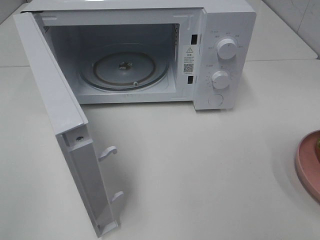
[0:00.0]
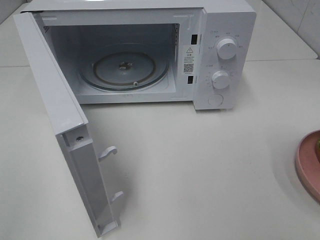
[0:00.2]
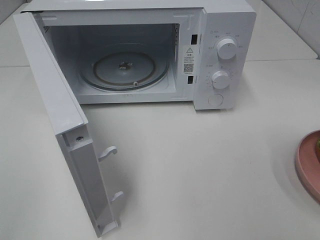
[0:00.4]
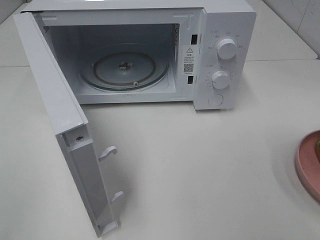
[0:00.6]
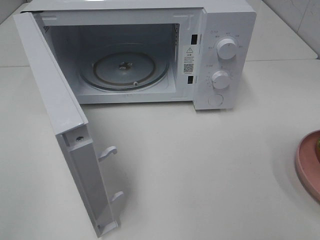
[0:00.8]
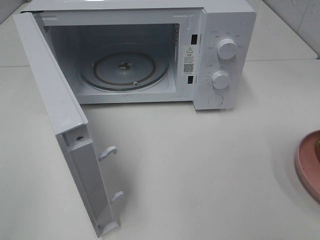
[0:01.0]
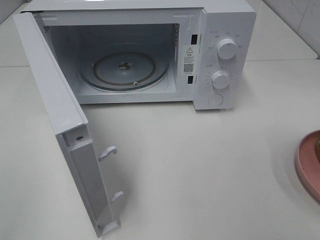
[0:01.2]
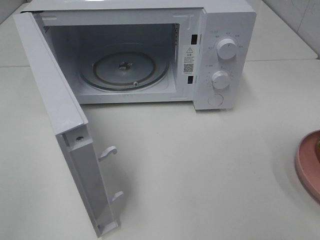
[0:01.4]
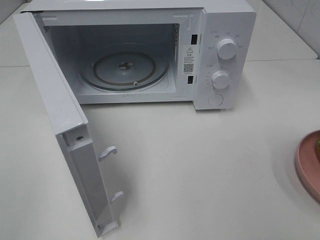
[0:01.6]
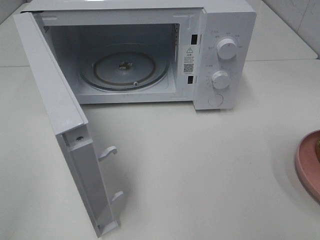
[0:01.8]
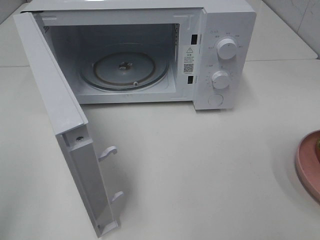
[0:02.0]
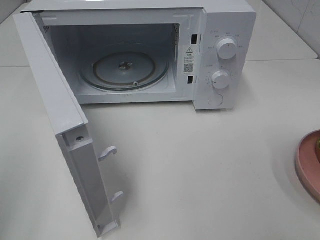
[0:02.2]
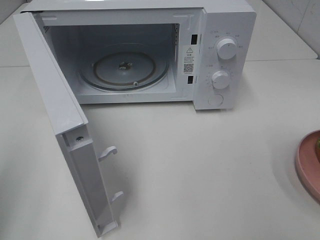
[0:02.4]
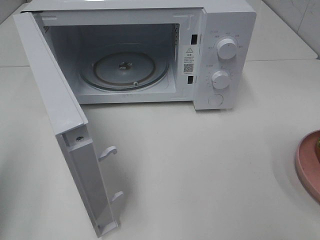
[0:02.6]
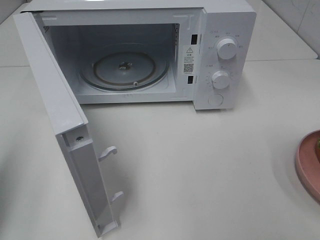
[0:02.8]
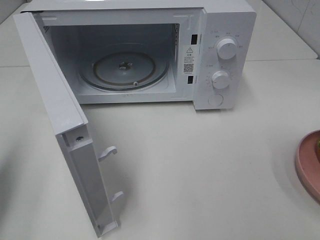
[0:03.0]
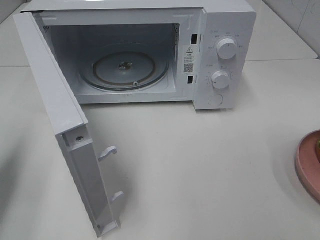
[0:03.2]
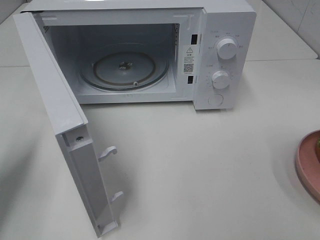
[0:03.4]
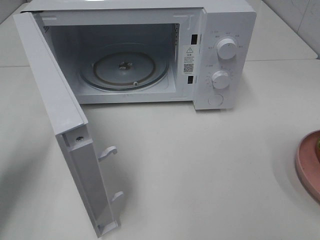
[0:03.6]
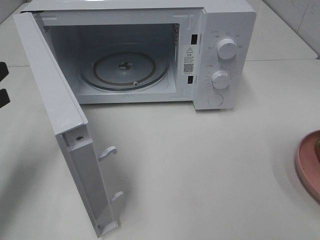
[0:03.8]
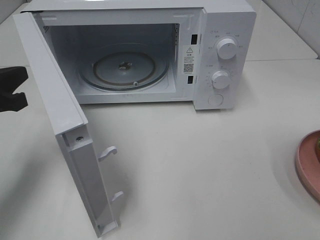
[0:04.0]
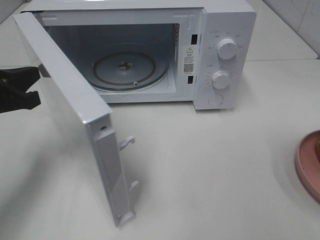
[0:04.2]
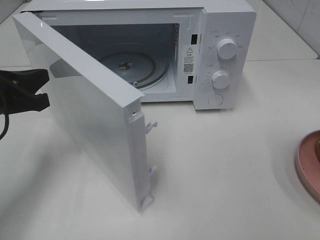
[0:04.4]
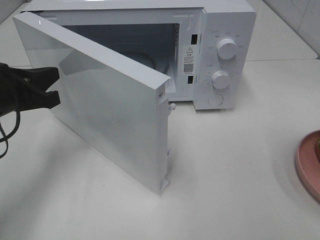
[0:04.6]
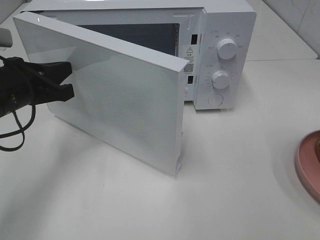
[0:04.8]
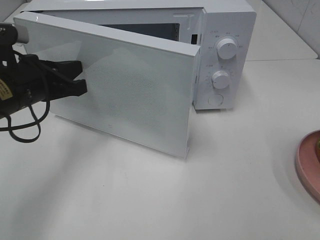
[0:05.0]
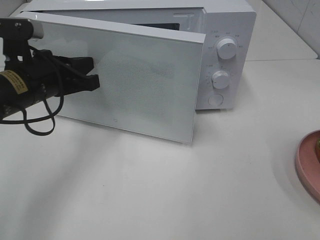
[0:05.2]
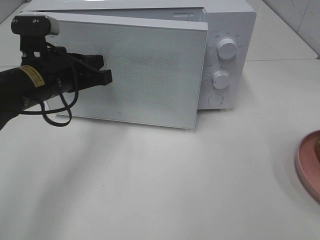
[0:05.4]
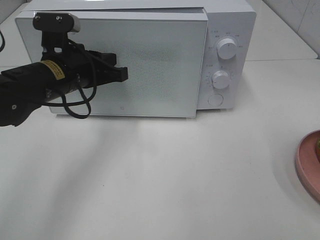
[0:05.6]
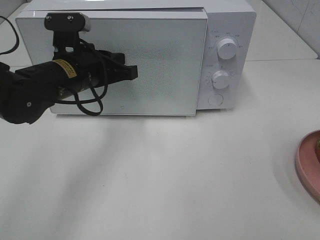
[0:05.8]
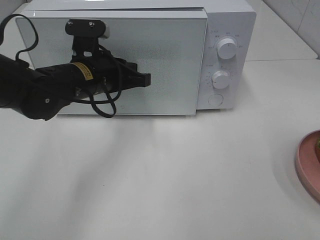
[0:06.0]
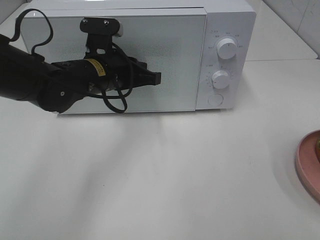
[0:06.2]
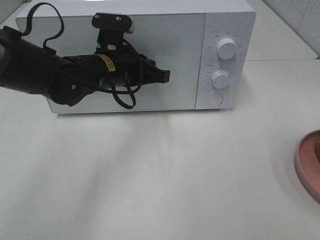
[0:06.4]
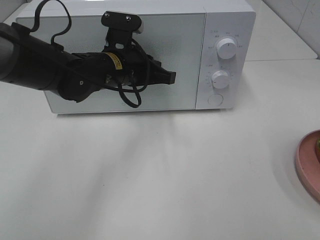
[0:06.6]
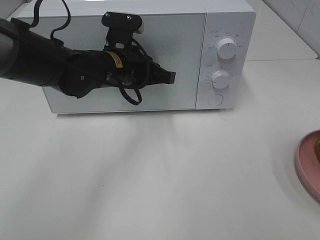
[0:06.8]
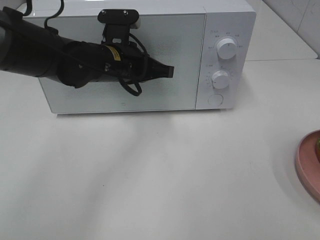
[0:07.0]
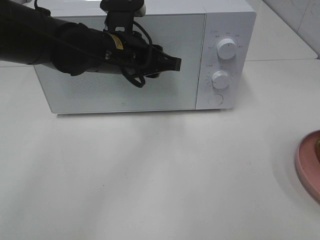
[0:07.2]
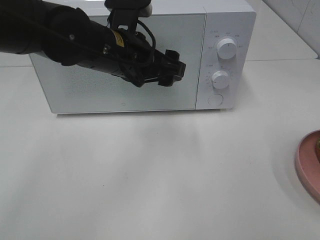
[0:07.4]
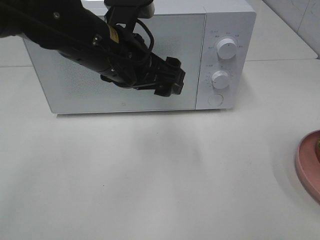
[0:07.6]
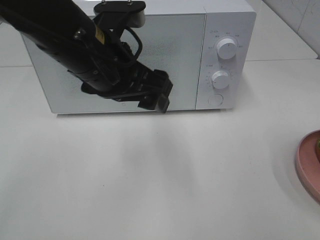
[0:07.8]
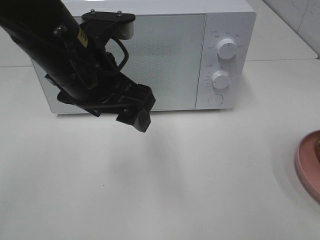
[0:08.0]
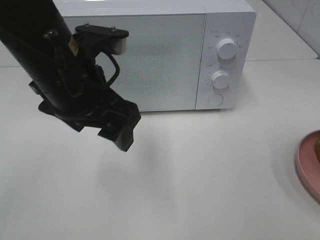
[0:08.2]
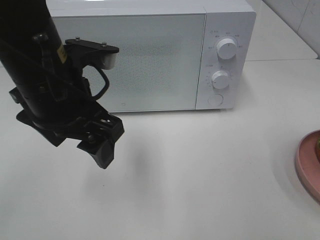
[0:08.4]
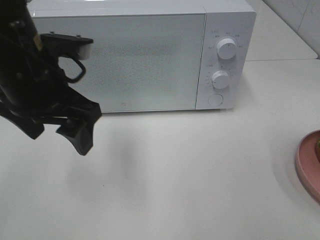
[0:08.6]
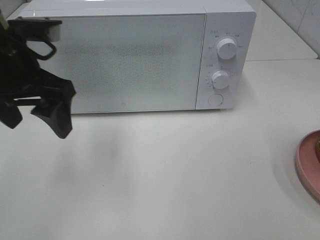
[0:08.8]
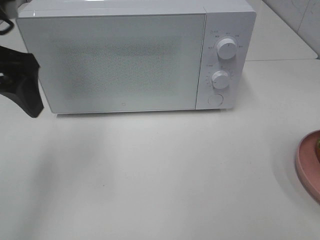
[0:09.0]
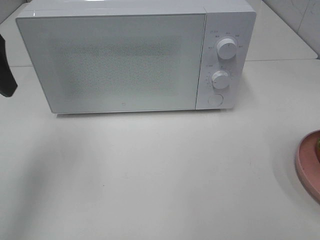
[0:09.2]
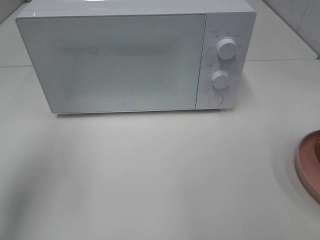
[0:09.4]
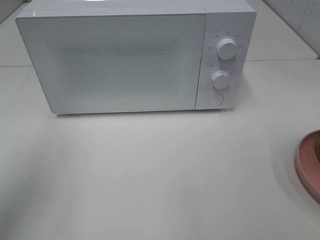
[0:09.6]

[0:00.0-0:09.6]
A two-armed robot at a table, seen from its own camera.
Task of the whole recording: Heat the burger.
Step, 0.0 to 7.0 s: Left hand: close the microwave door.
0.0 to 1.6 s: Both grippers stay put.
1.6 to 3.2 s: The left gripper is displaced forward and downward by some 20 cm, and closes its fingers.
3.2 to 4.8 s: The left gripper heads to the right and forward, covering roughly 15 cm.
4.8 to 6.4 s: The left gripper travels to the right and forward by approximately 15 cm.
6.4 to 8.0 s: The left gripper heads backward and upward, covering roughly 15 cm, and opens its fingers.
8.0 to 9.6 s: The left gripper travels to the left by approximately 20 cm.

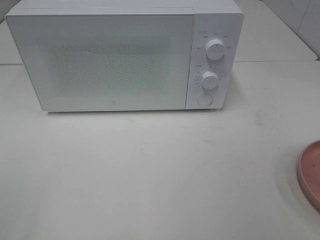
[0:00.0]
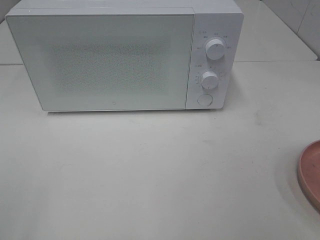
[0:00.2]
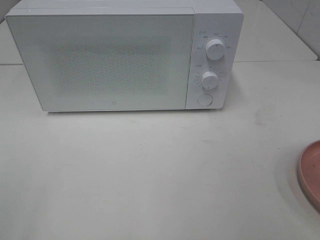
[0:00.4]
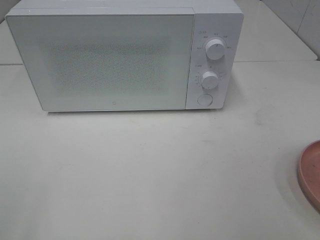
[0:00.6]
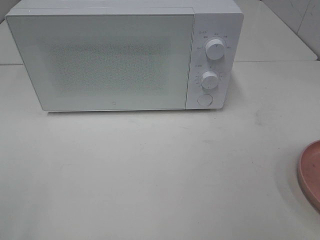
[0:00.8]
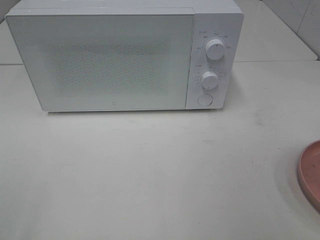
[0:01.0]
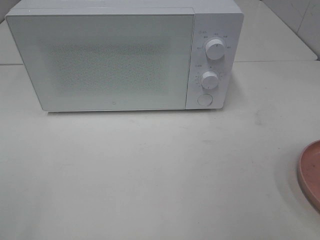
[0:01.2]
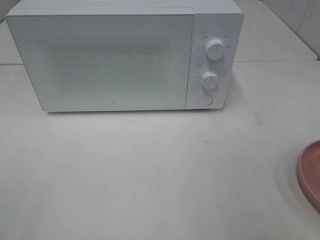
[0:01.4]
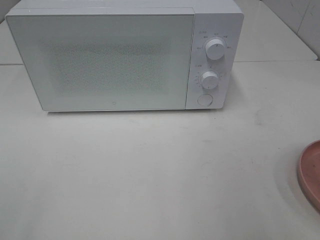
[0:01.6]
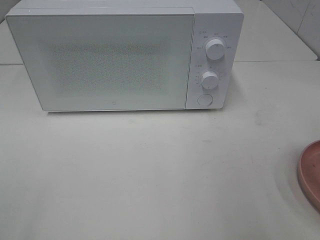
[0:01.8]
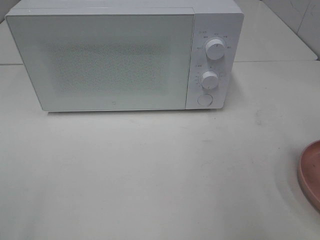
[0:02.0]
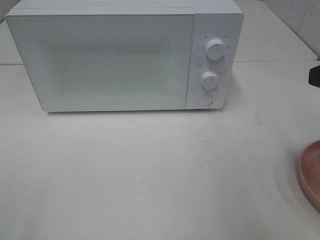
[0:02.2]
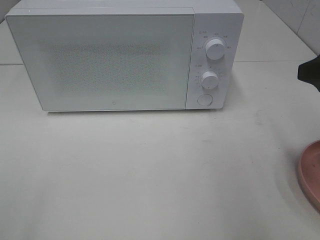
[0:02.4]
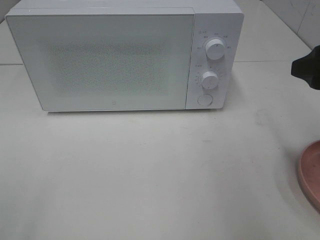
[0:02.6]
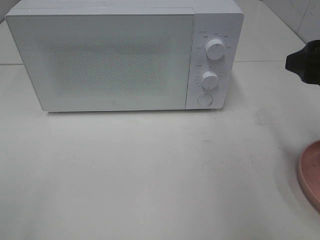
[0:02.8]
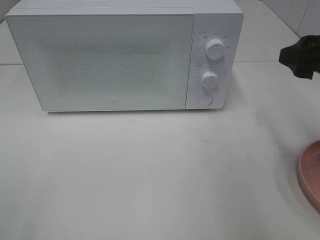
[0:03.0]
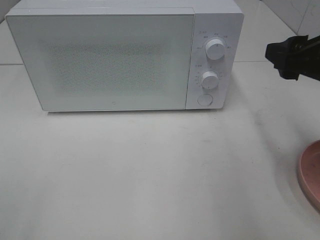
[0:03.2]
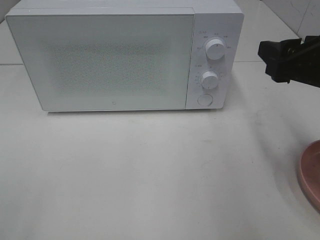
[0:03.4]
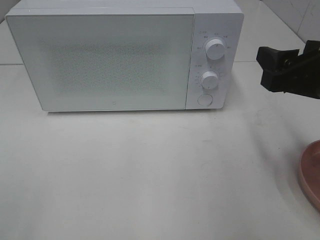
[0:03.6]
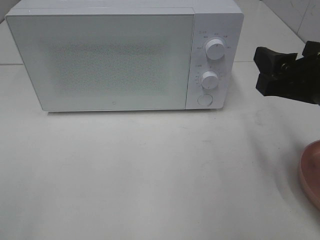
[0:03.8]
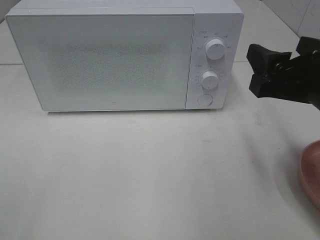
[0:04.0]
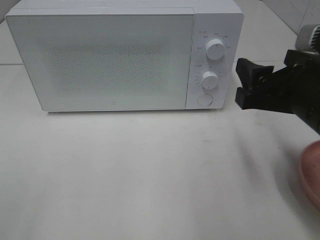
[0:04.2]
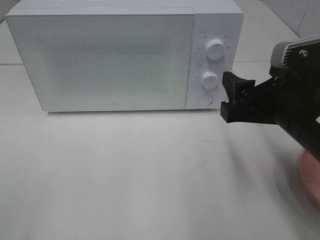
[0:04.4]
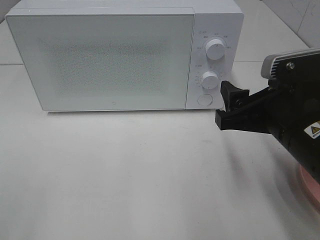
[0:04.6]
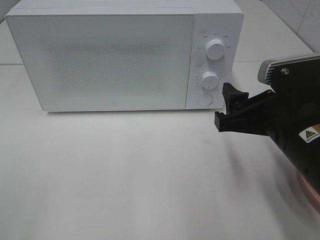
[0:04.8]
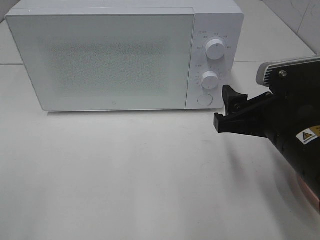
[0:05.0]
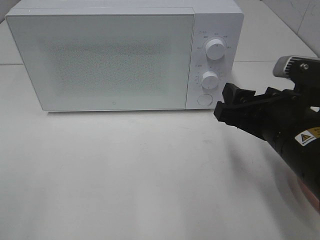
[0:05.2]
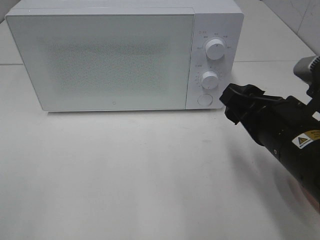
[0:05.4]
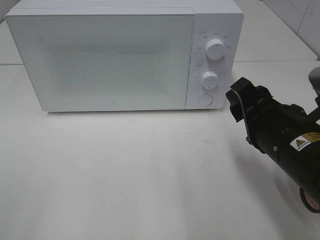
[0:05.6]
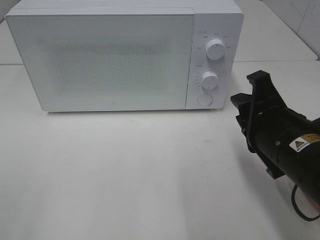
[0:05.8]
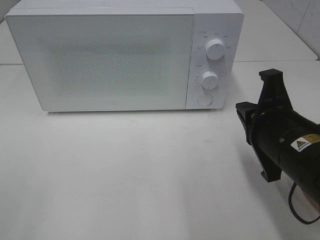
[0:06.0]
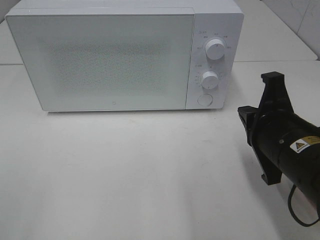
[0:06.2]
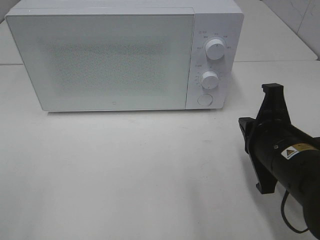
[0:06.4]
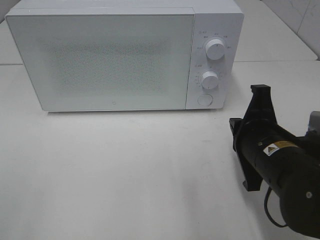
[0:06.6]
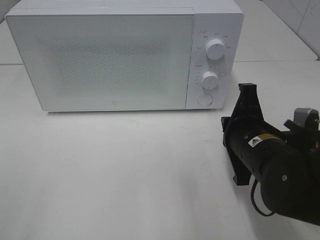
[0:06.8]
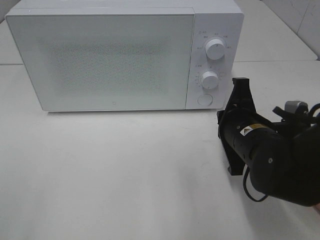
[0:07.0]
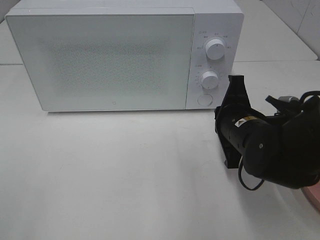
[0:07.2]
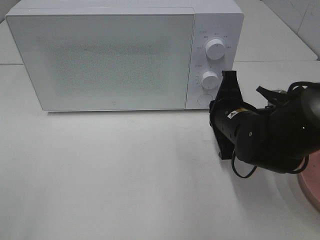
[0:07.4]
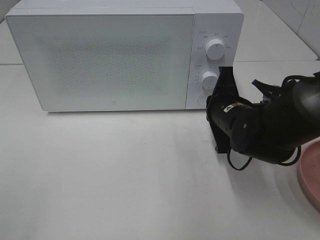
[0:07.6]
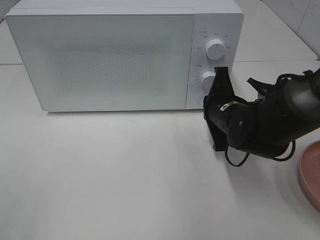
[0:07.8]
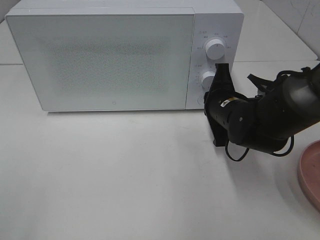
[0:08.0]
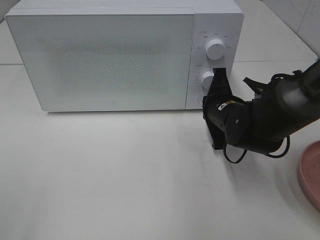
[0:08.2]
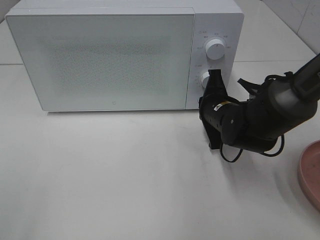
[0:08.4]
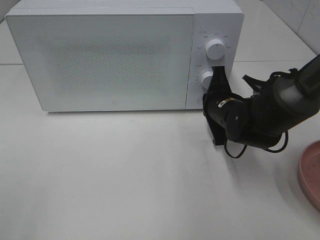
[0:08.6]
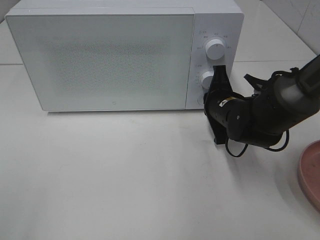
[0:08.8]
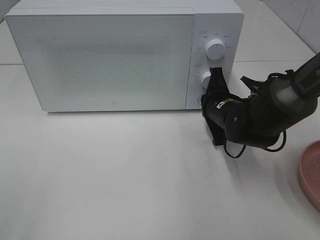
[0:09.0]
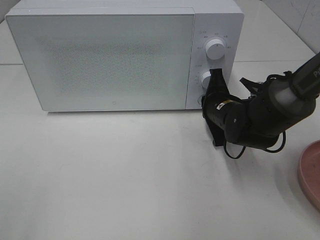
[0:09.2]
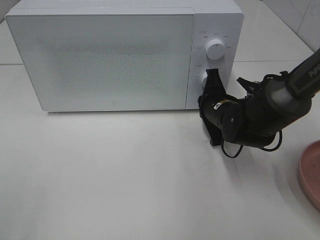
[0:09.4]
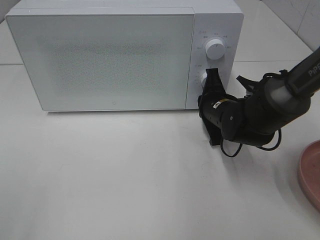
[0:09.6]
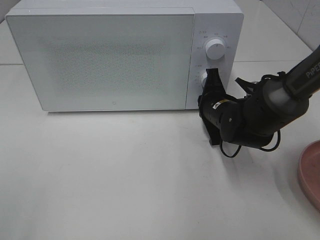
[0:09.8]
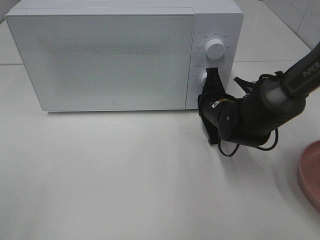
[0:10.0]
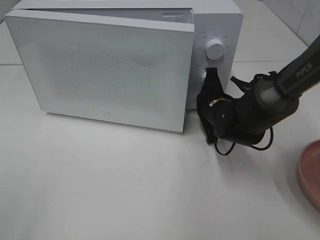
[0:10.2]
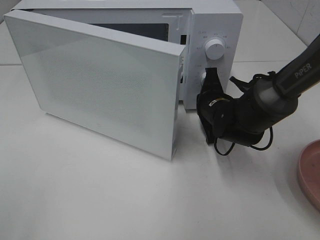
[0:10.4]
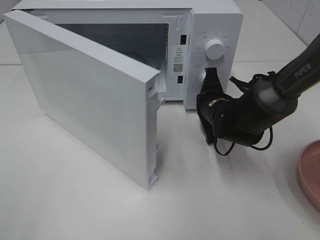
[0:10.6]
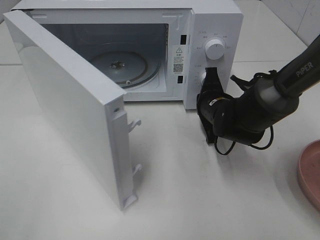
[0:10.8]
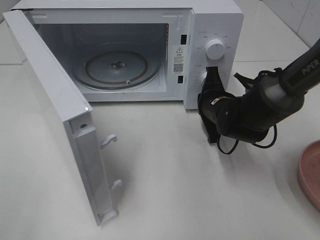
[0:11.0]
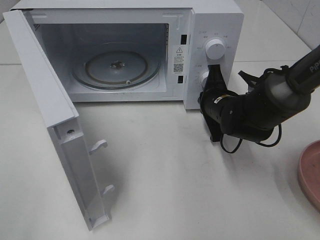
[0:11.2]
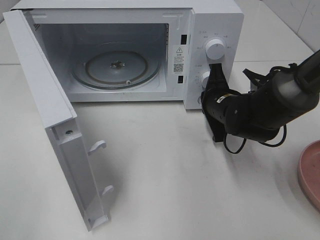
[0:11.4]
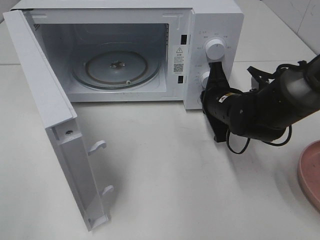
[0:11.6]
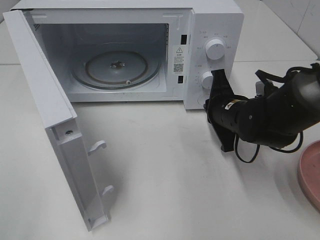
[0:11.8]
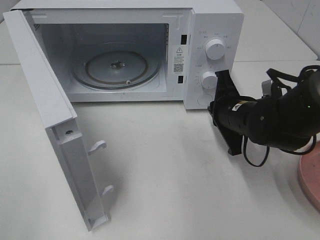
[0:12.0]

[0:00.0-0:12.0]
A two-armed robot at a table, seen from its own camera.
Task of the whole recording: Heat the burger.
Step, 0.0 to 11.8 s: Right hand: press the switch.
1.6 to 3.0 s: The right gripper heads forward, covering about 15 cm.
3.0 to 4.4 s: The right gripper shifts some 10 cm to the left and downward.
4.4 to 6.0 s: The right gripper closes up.
6.0 to 7.6 s: The right gripper travels forward and downward by approximately 15 cm.
7.6 to 9.0 s: The right gripper moves roughly 5 cm.
9.0 to 10.4 s: The grippers stay close to where they were, moving slightly.
10.4 to 12.0 s: The right gripper heads backward, covering roughly 5 cm.

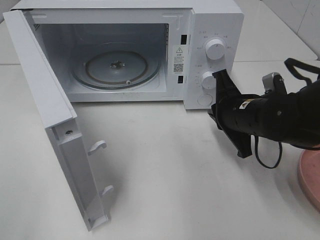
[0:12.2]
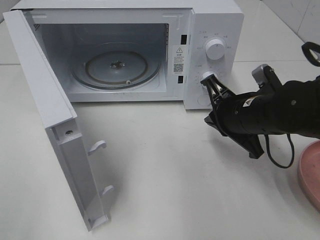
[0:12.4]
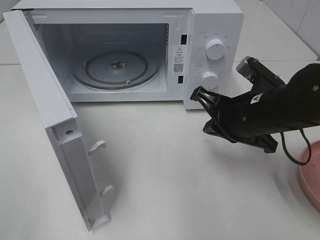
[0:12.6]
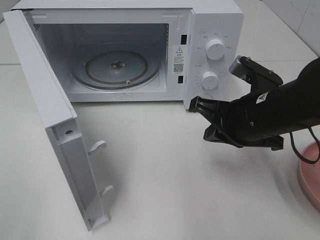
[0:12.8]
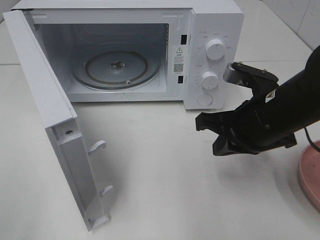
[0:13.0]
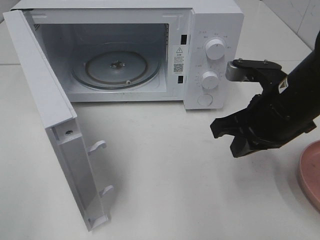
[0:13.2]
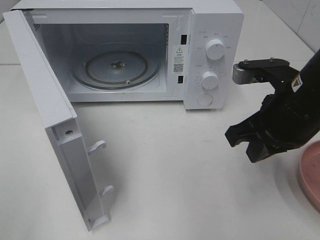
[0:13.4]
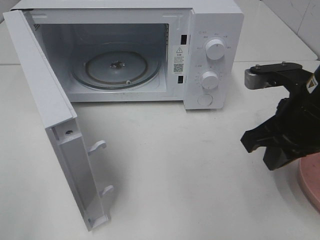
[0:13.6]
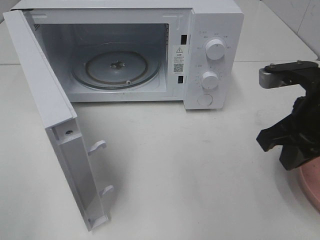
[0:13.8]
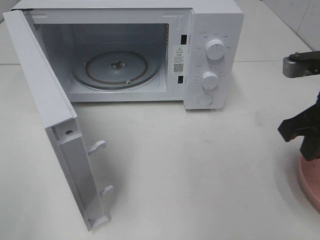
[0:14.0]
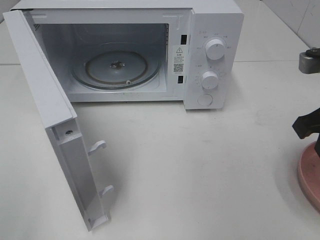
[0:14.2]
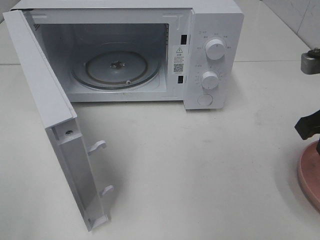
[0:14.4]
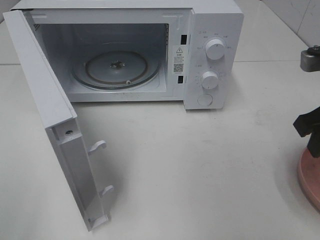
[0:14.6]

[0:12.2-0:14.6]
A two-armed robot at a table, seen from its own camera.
Task of the whole recording: Heat the burger.
12.2 to 13.4 s: The right gripper travels upward and backward by about 10 cm.
13.4 to 14.6 s: The right gripper heads to the right, covering approximately 5 cm, and opens.
